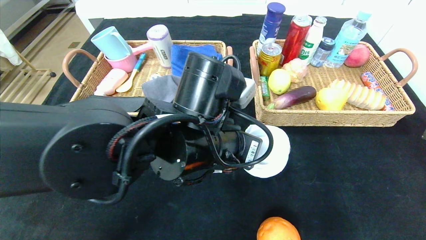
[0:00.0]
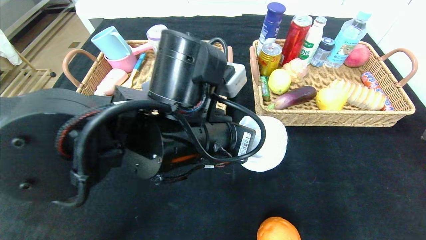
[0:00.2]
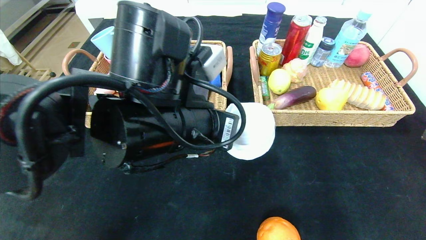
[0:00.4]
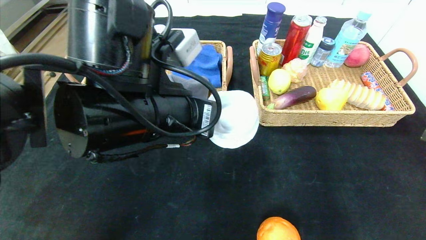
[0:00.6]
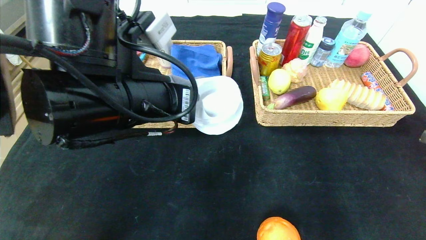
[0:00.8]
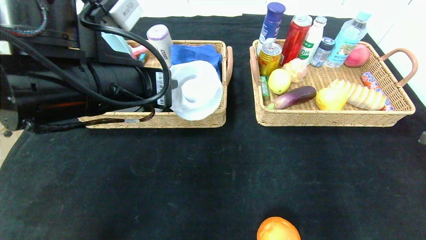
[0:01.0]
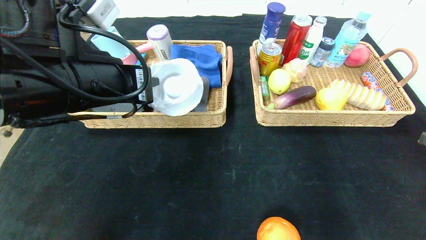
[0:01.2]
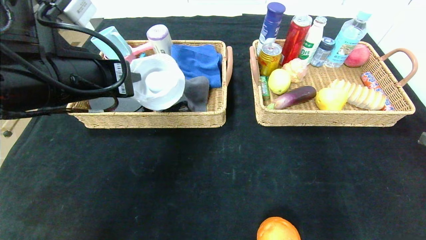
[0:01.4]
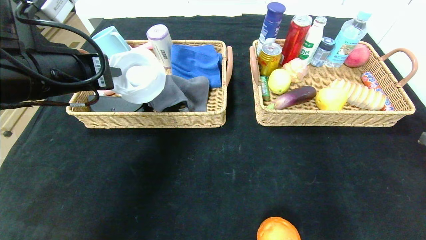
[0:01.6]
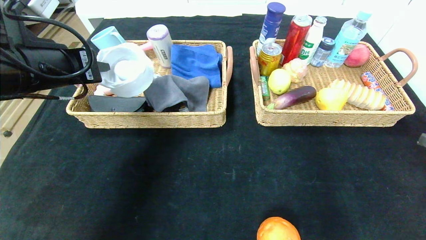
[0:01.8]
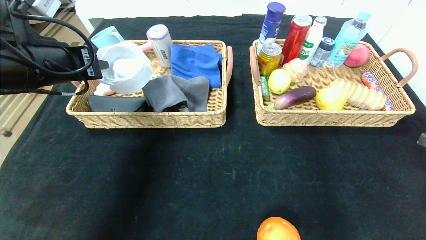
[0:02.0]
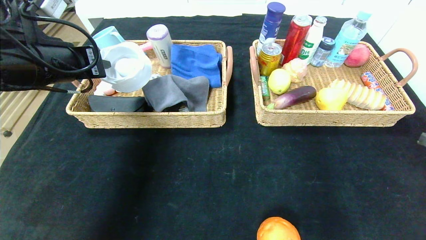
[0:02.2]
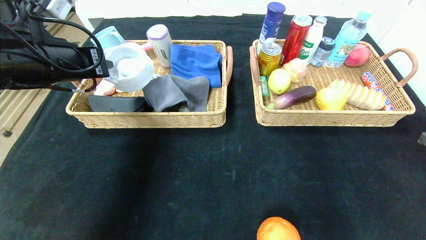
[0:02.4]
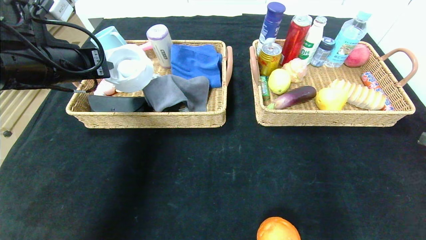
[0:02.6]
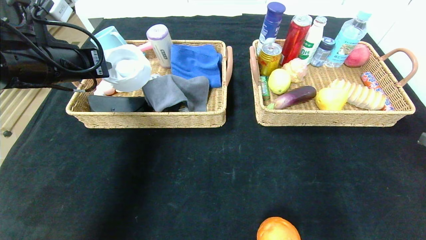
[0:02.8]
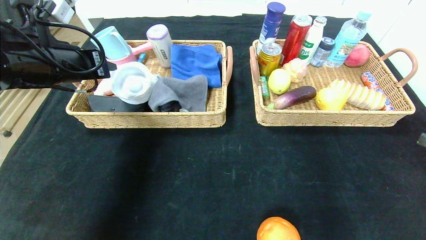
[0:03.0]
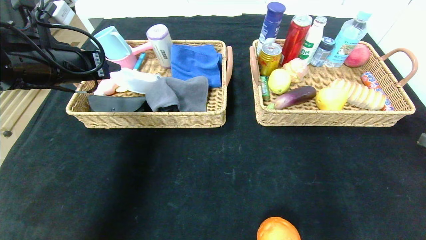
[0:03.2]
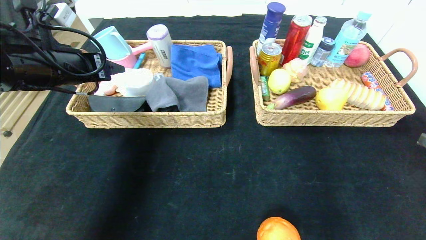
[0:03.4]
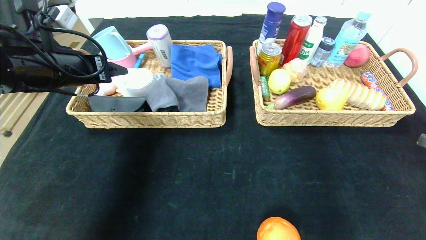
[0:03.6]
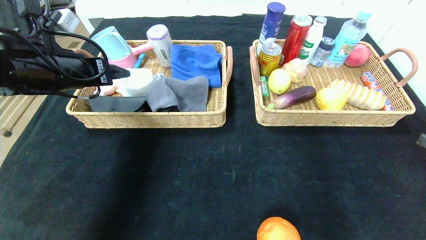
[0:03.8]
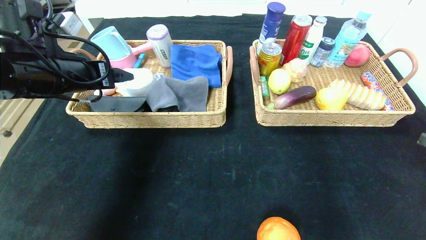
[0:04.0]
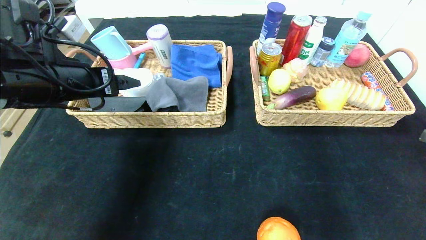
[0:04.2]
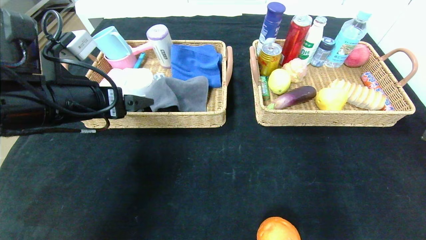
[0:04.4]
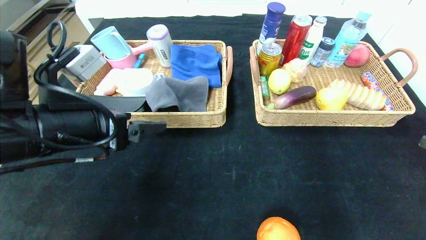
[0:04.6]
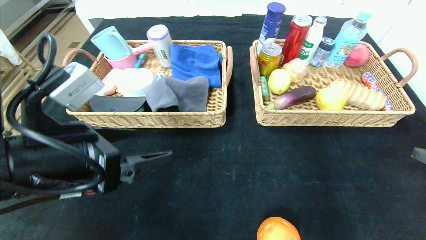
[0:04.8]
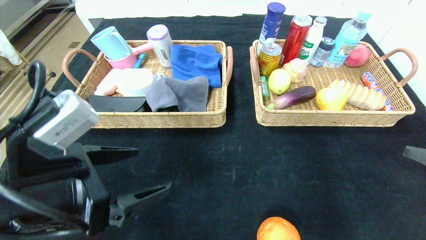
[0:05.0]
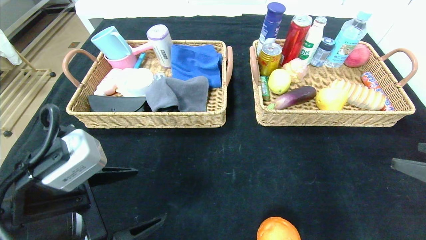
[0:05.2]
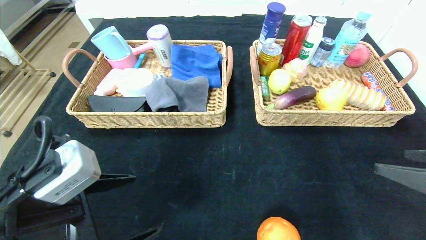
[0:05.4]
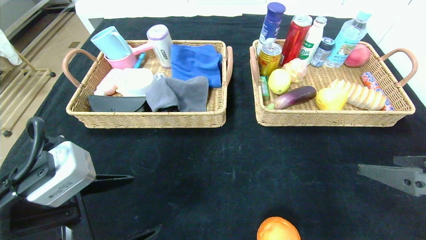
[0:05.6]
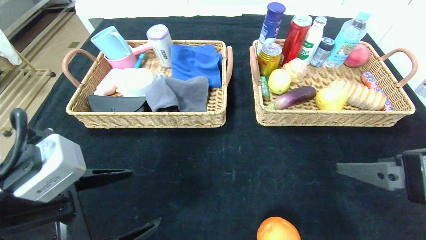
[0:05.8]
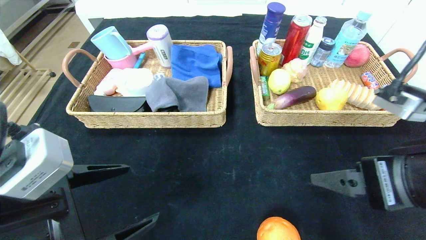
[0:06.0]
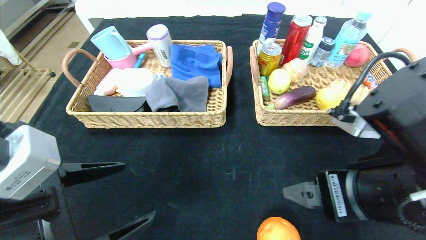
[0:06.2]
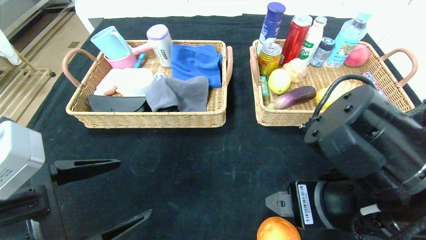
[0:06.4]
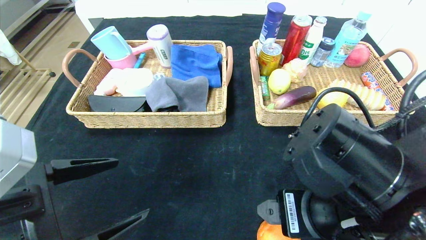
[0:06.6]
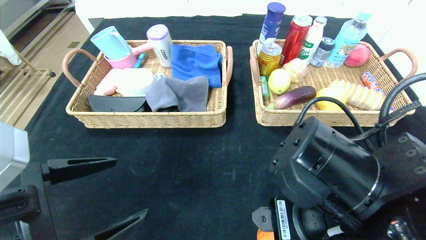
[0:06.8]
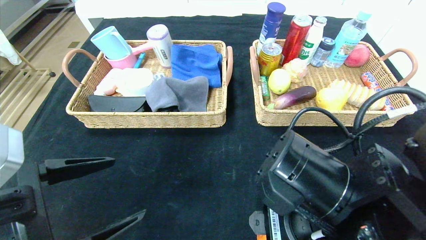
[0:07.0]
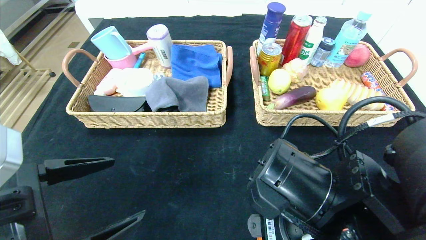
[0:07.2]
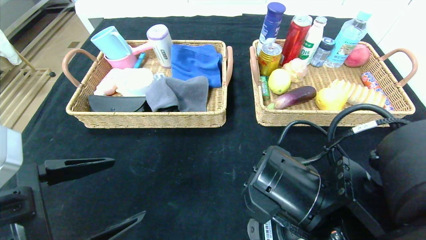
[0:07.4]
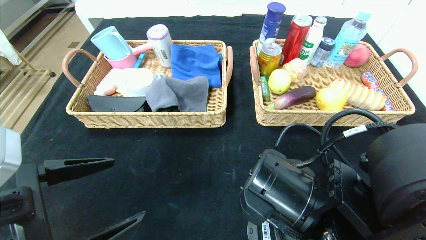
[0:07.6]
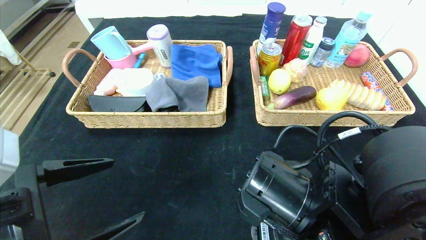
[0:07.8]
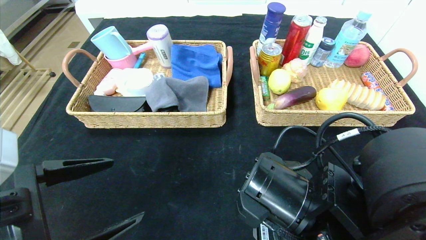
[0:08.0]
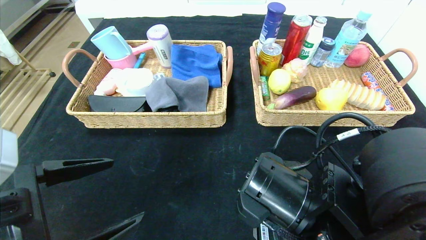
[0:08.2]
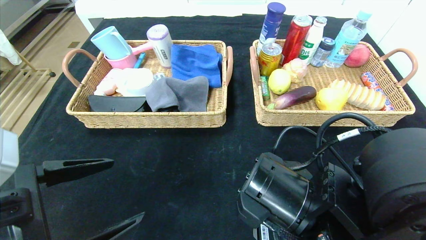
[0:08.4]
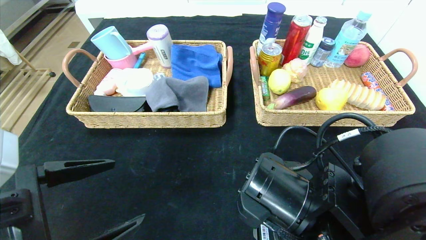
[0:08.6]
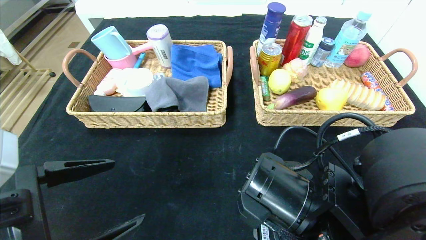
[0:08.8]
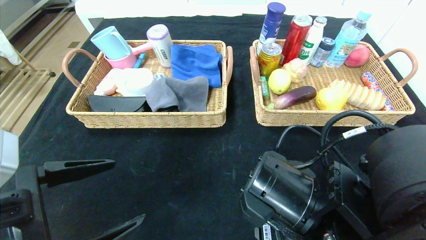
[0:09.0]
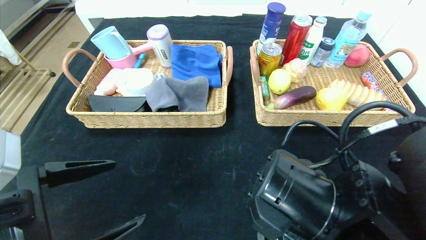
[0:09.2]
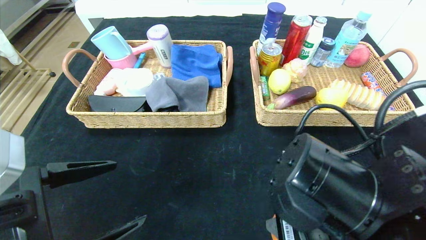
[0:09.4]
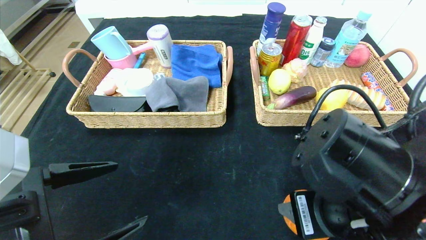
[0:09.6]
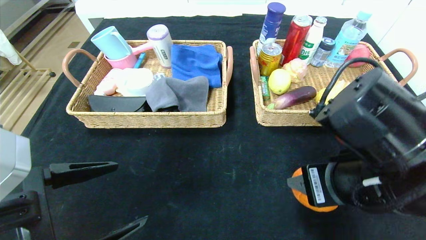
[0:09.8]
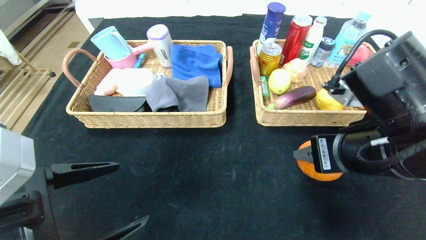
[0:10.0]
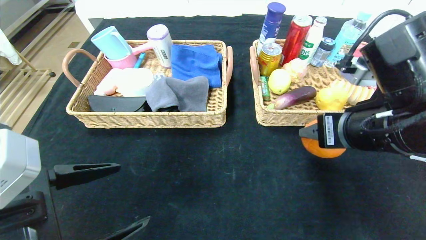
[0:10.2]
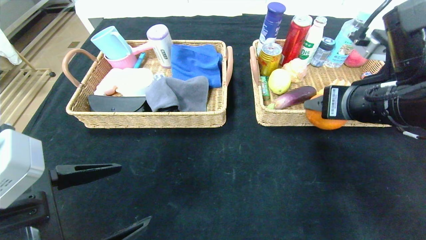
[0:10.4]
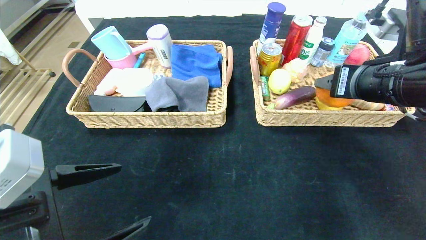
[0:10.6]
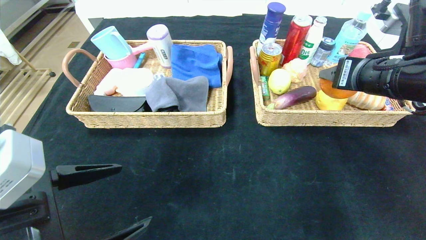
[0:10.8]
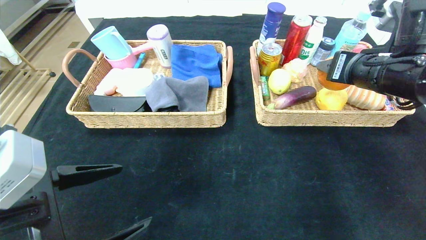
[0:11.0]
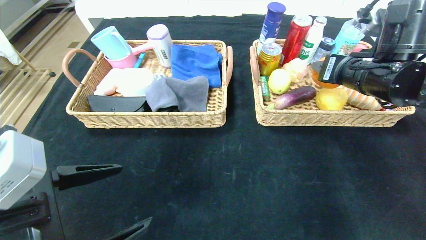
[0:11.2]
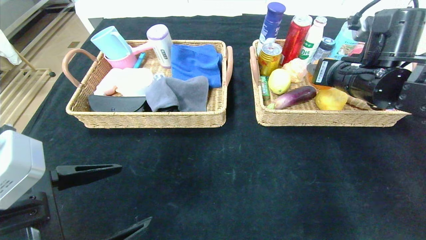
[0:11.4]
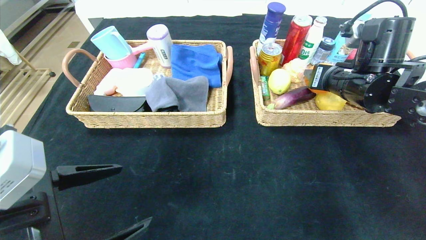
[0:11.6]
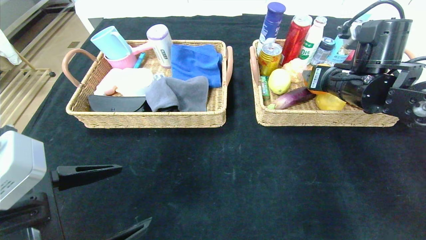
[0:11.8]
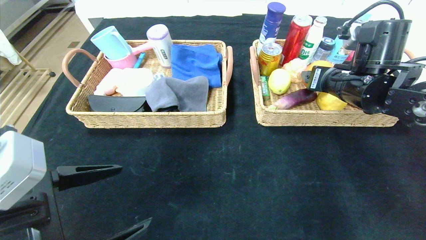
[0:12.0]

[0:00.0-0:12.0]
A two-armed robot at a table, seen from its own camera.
Step, 0:00.0 to 0:03.2: Grasp the tape and put it in the left basket.
0:00.0 to 0:01.6: The left gripper moves to the left, about 20 cm.
0:01.6 to 0:03.0: The left gripper shifts some 5 cm forward.
0:03.0 to 0:04.4: The left gripper shifts roughly 5 cm backward, and opens.
0:04.4 to 0:06.0: The left gripper shifts about 15 cm backward and downward; the right gripper heads to the left, covering about 15 cm.
0:06.0 to 0:07.6: The right gripper goes approximately 15 cm to the left and downward.
0:07.6 to 0:09.0: The right gripper closes up.
0:09.0 to 0:10.4: The right gripper moves upward, to the right and forward, some 20 cm.
0:10.4 to 0:12.0: The right gripper goes some 10 cm forward.

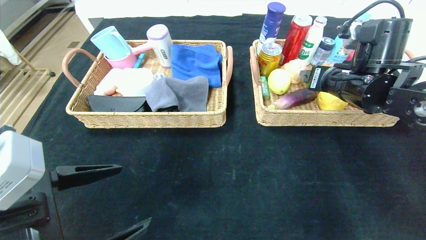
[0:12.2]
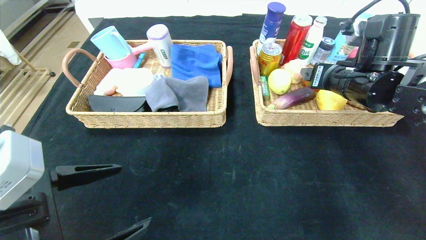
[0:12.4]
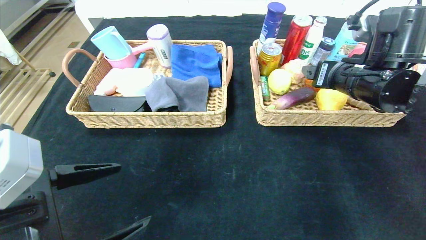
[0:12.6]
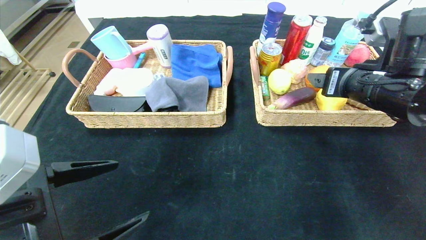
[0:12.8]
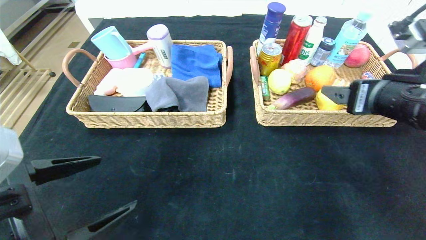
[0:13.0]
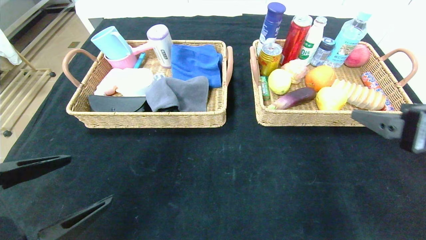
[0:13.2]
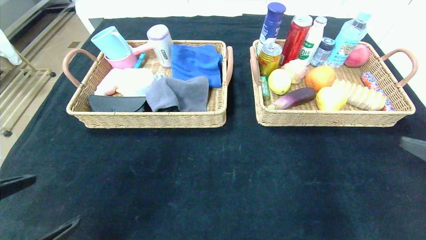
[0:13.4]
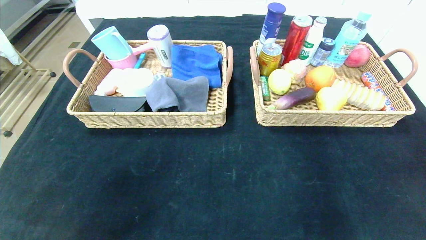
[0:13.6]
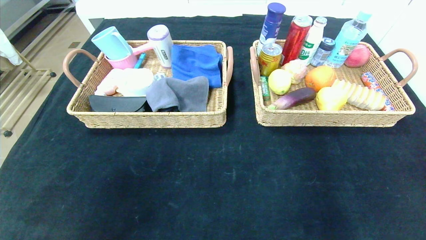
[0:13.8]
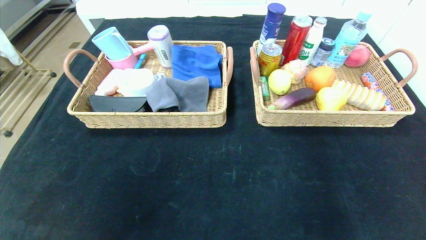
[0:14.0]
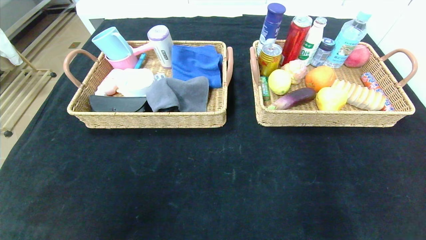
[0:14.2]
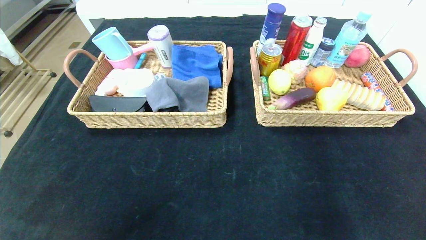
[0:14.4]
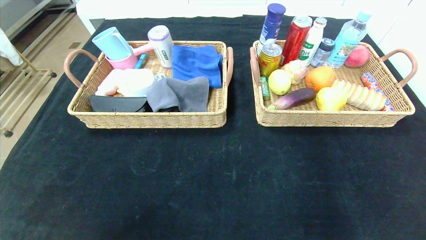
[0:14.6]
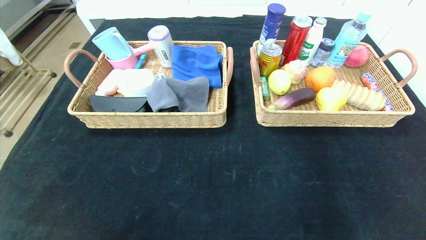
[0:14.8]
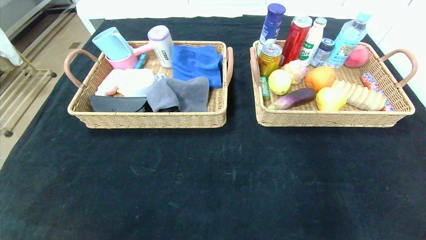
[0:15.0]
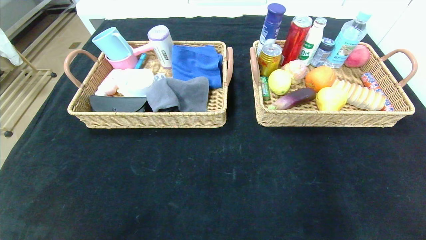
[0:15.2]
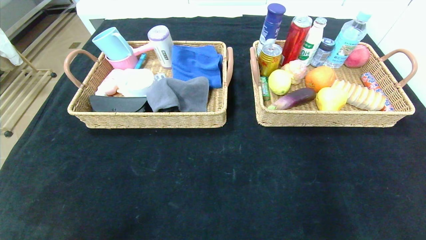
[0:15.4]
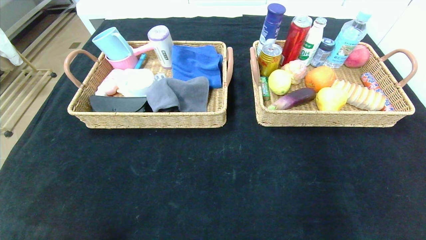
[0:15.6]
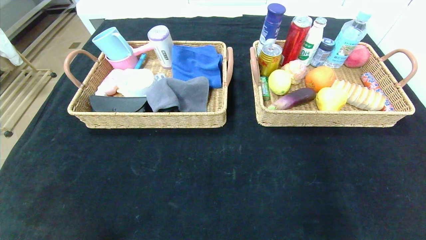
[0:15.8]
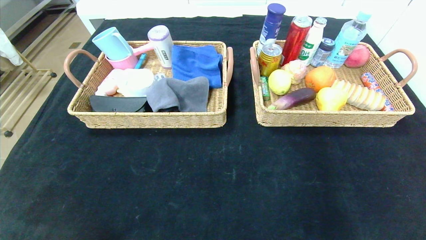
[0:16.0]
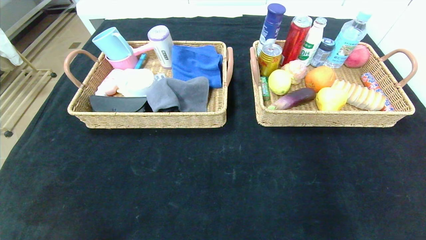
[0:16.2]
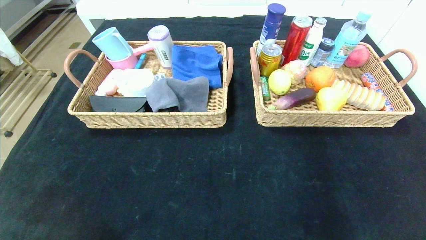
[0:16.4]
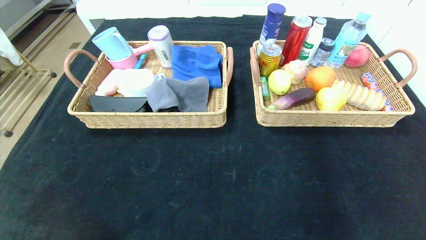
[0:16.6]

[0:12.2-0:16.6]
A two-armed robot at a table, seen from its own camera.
0:12.2 to 0:13.6: The left gripper goes approximately 10 cm backward and to the left; the right gripper goes roughly 30 cm backward.
0:13.6 to 0:15.2: The right gripper is displaced downward and backward by approximately 15 cm; the left gripper heads backward and downward, covering roughly 15 cm.
